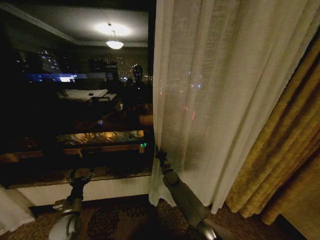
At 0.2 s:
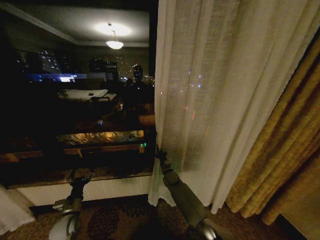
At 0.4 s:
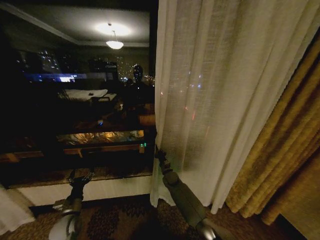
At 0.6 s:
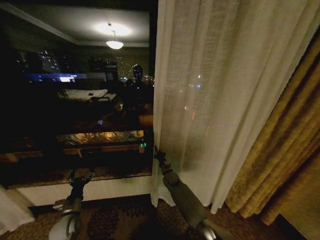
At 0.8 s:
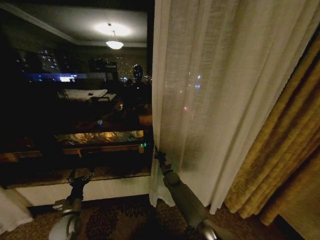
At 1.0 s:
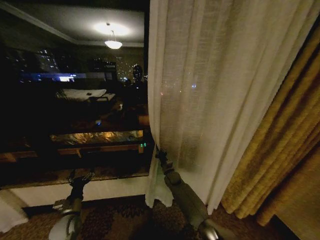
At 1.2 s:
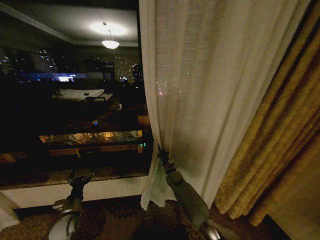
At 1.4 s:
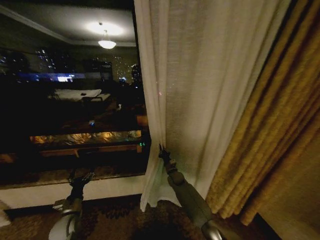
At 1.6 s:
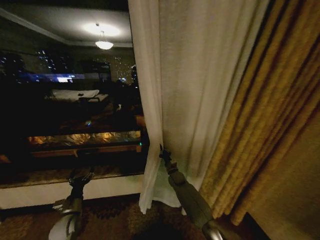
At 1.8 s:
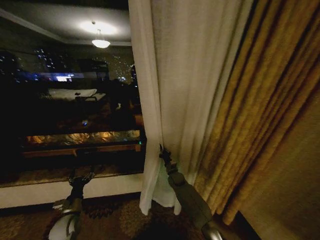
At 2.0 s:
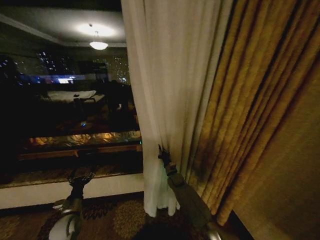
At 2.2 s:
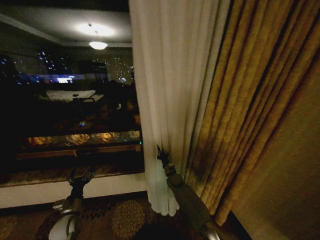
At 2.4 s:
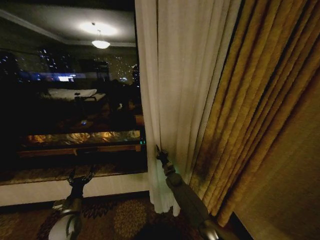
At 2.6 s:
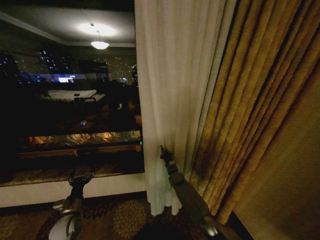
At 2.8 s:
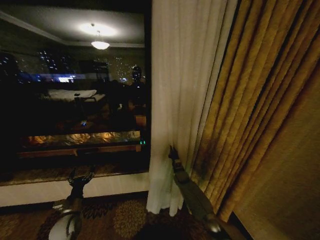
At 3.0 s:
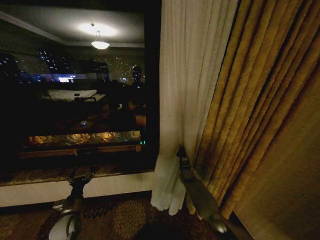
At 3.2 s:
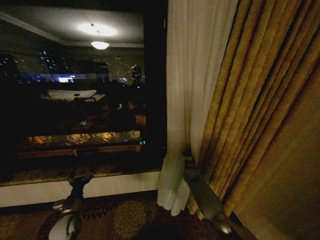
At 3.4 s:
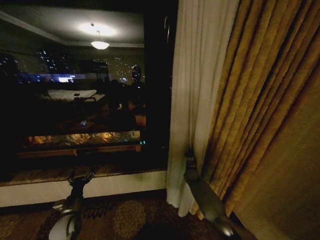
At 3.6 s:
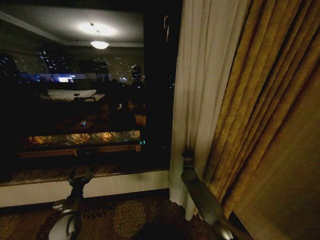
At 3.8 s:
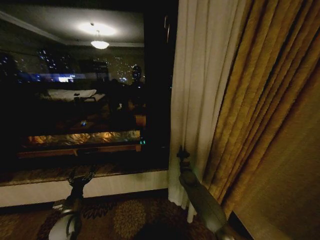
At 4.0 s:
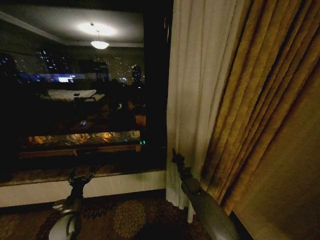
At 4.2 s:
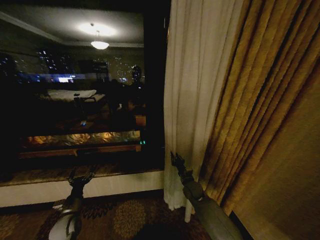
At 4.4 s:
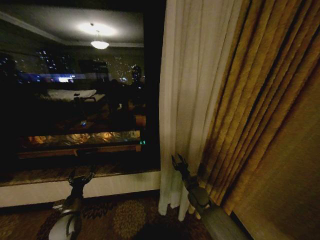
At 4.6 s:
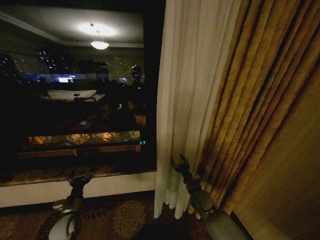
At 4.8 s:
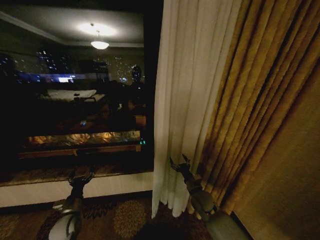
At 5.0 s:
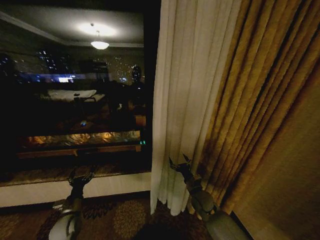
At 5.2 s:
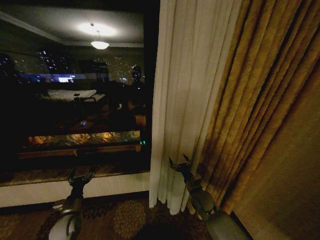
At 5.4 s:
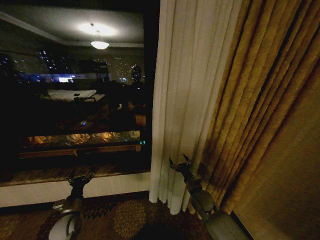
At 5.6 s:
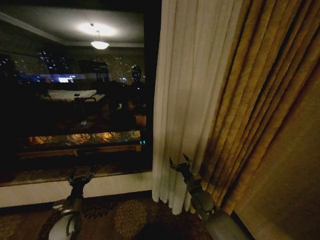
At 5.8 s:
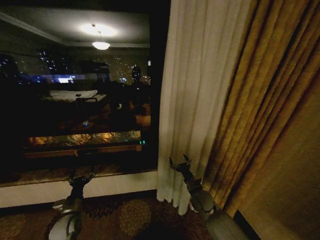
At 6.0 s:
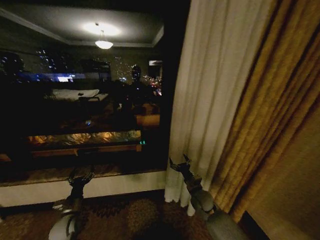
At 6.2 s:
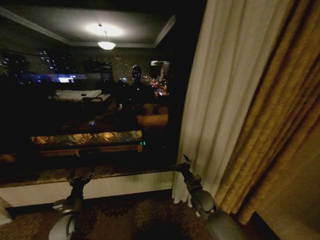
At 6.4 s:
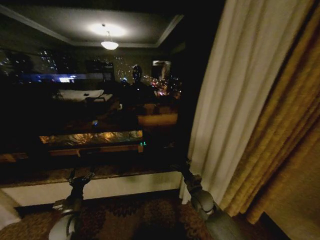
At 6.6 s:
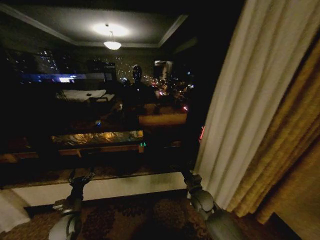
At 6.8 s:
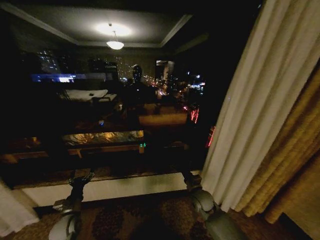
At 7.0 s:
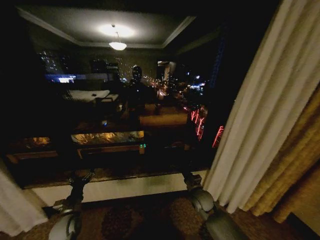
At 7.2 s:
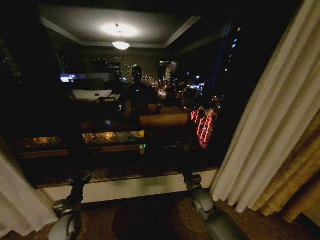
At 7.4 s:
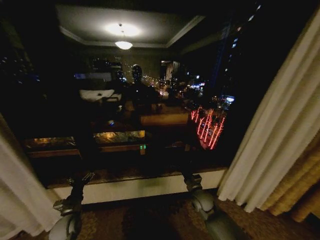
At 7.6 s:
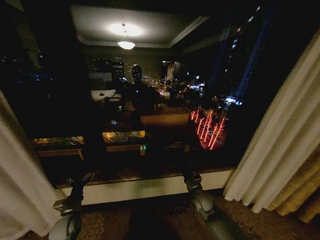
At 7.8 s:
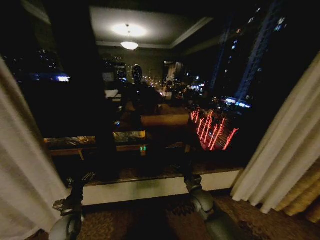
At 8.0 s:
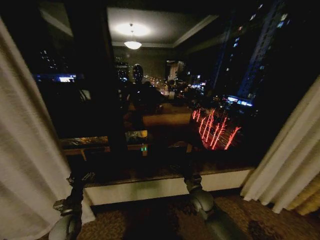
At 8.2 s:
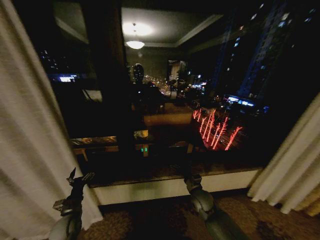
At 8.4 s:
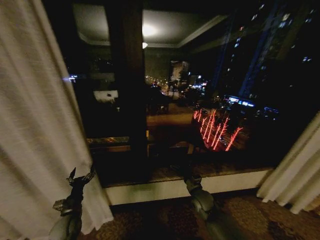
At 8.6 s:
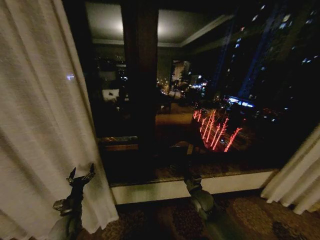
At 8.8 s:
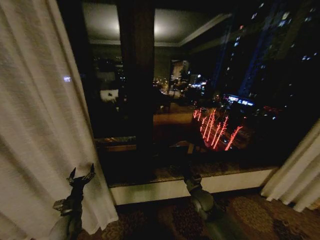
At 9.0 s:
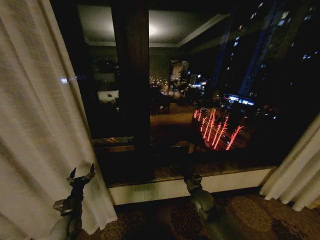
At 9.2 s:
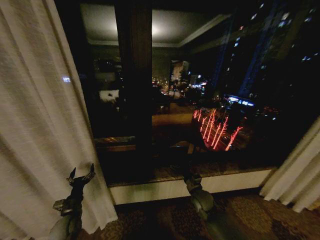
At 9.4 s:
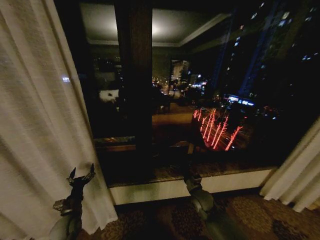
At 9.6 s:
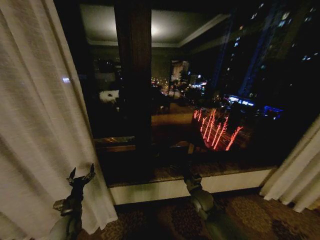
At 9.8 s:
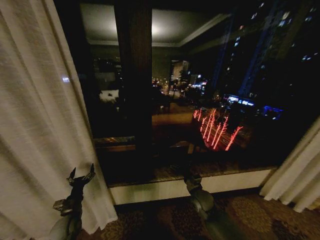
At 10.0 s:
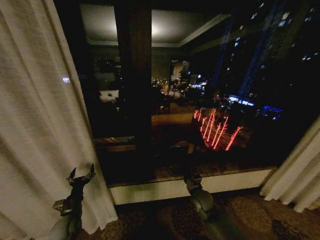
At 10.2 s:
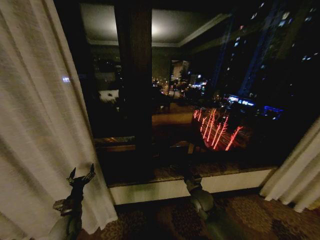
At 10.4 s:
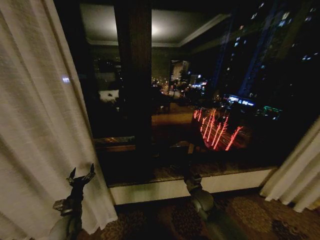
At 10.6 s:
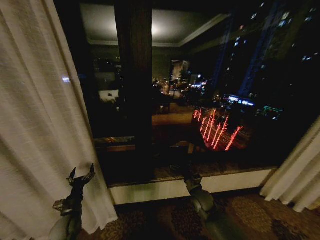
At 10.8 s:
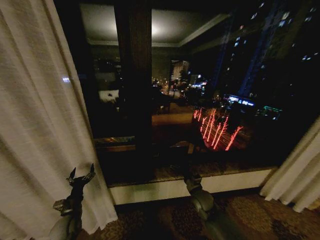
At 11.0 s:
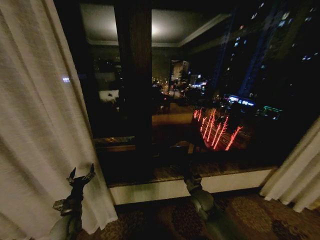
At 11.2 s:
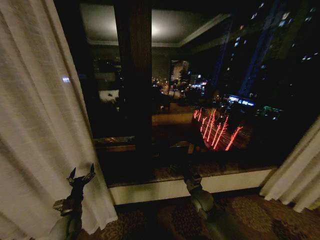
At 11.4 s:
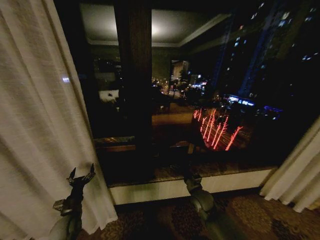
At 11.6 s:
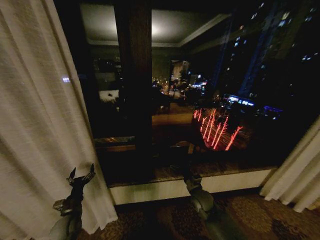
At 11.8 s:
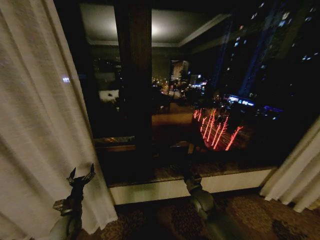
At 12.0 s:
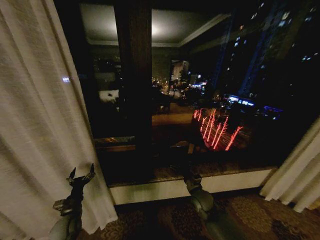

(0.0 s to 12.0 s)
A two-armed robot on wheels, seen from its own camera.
Task of the whole recording: Open the curtains by pulling them apart, changing their state from closed to fully open.
1.6 s - 3.0 s: The right gripper shifts about 10 cm to the right.
3.0 s - 4.4 s: The right gripper heads backward, covering roughly 15 cm, and opens its fingers.
4.4 s - 6.0 s: The right gripper opens.
9.0 s - 12.0 s: Both grippers stay put.

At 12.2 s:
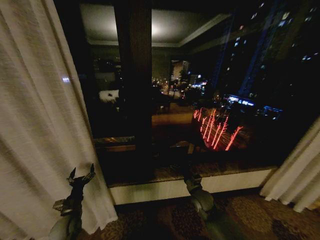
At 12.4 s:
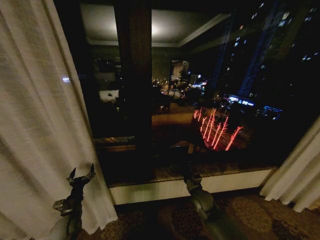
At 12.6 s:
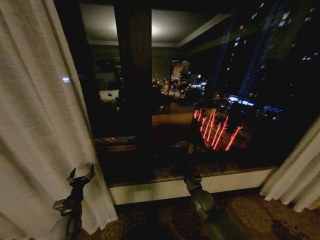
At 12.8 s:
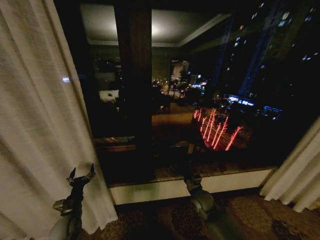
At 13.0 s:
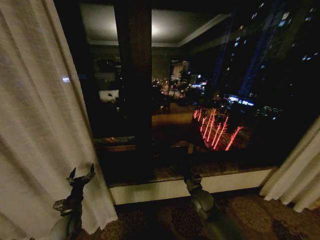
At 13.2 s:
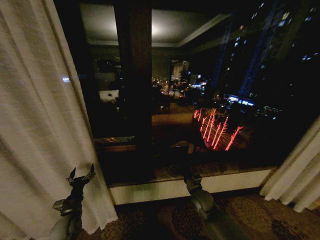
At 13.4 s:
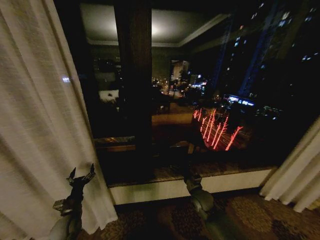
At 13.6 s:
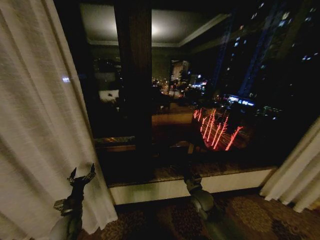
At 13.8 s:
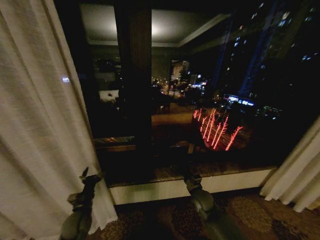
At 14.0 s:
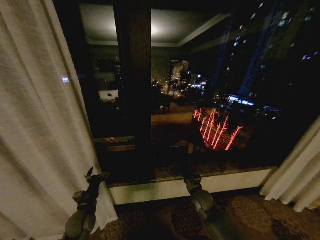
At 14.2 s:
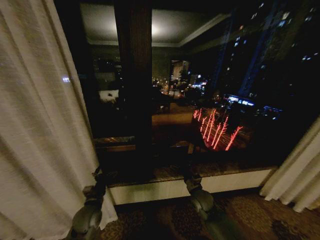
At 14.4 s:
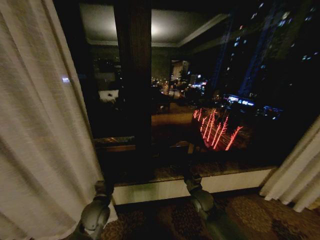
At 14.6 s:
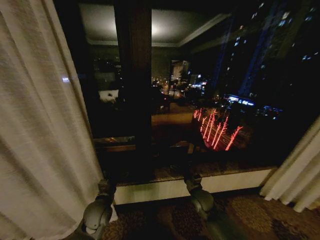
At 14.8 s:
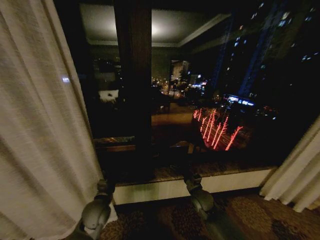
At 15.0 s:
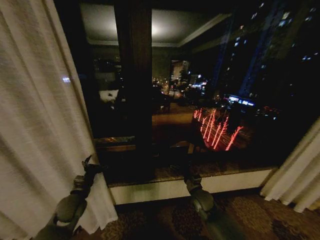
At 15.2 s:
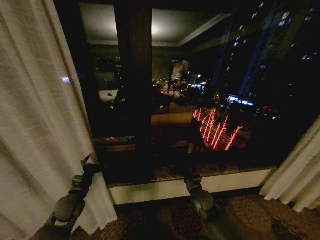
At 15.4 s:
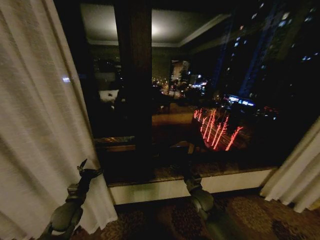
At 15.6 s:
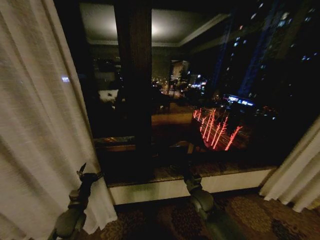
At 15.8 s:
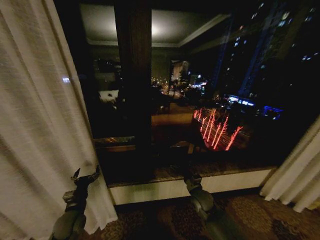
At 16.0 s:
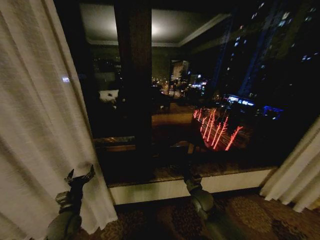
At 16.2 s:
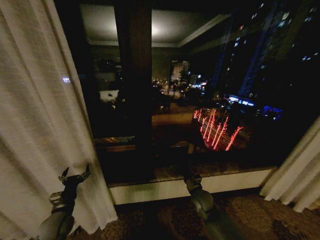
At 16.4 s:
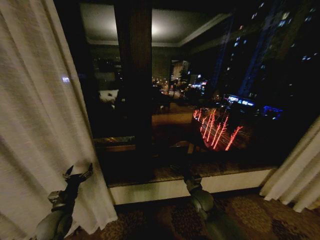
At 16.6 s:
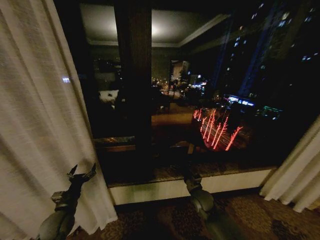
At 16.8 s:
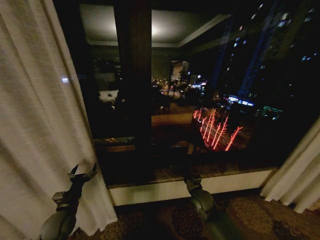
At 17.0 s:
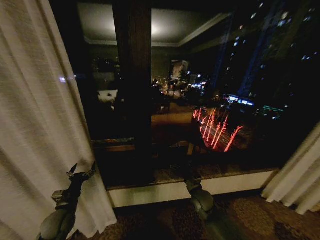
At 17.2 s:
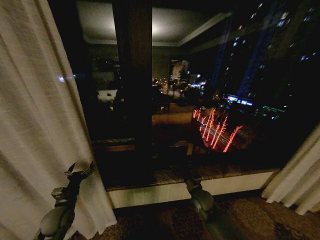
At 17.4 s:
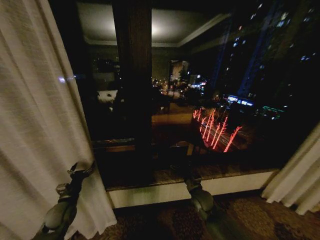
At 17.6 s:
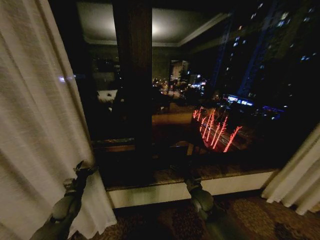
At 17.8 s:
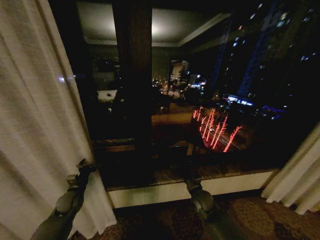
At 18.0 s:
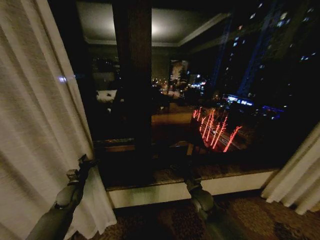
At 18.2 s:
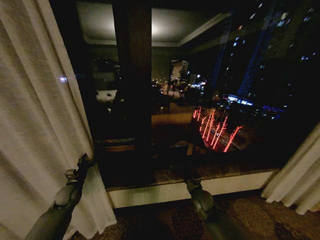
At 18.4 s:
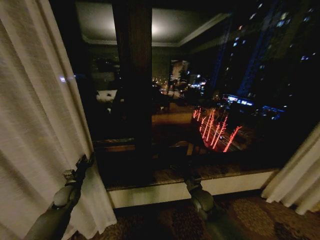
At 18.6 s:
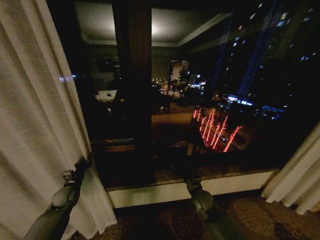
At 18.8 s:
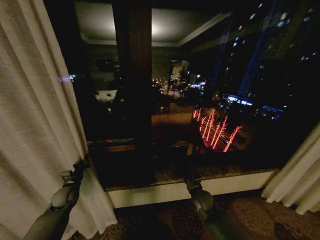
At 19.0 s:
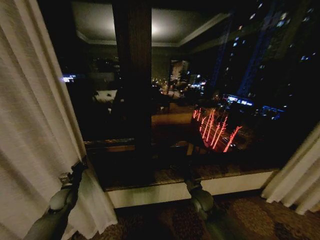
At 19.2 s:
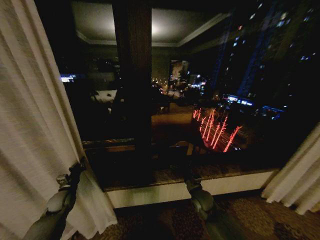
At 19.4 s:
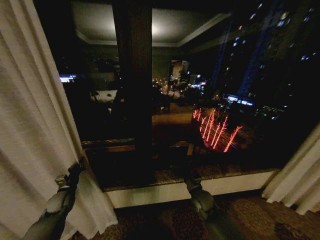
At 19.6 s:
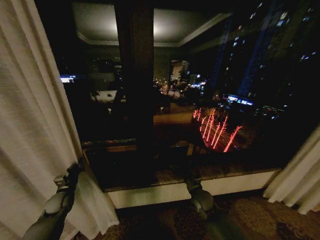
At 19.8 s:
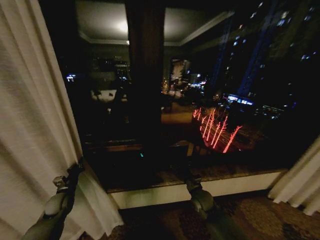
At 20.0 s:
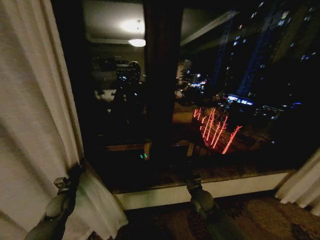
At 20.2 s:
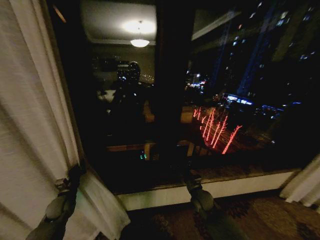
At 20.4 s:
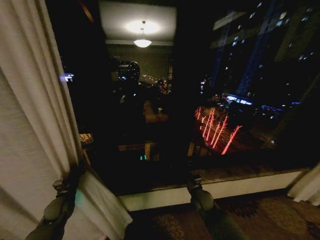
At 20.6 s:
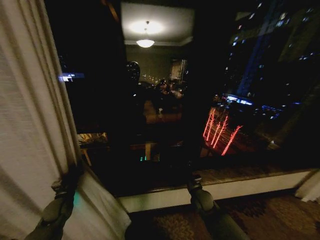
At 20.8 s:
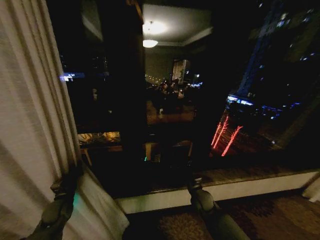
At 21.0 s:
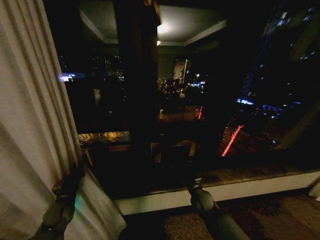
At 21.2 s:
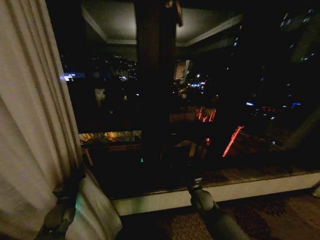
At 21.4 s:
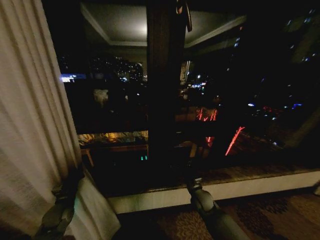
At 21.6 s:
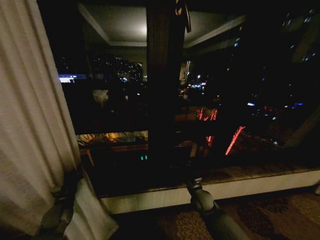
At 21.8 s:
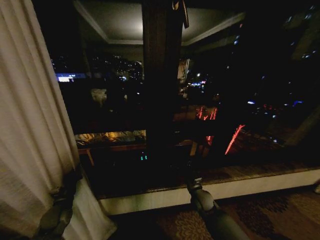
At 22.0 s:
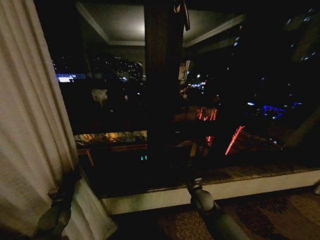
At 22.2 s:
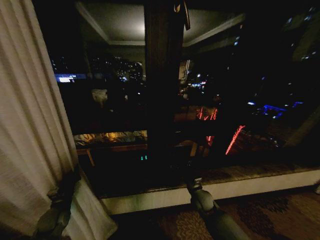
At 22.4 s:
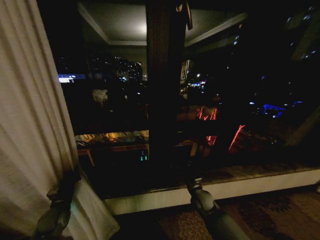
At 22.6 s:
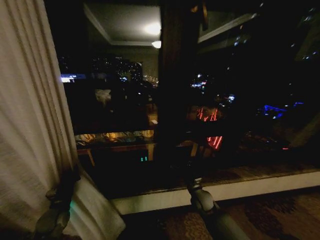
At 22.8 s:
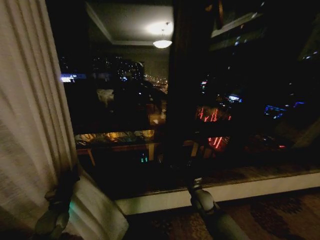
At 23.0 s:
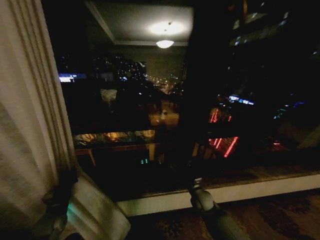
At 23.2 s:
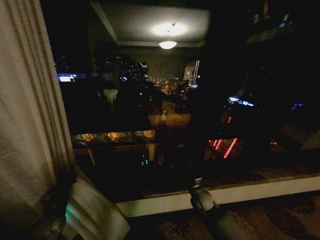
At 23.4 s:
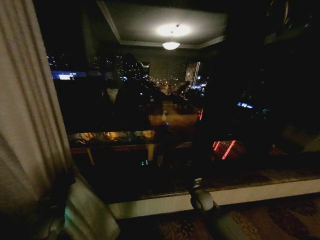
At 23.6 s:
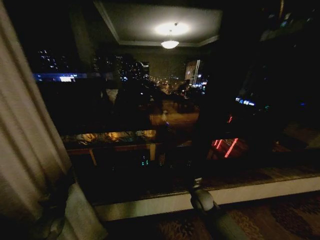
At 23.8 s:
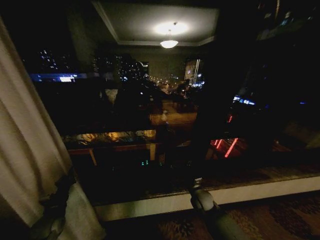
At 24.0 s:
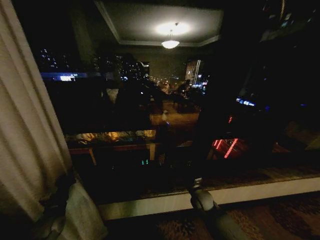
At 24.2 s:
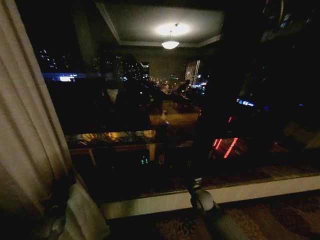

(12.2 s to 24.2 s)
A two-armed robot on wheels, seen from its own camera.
Task of the whole recording: Open the curtains by pulling them apart, changing their state from closed to fully open.
12.2 s - 13.8 s: The grippers stay close to where they were, moving slightly.
13.8 s - 15.2 s: The left gripper travels upward by approximately 5 cm, and reaches some 10 cm to the right, then returns.
15.2 s - 16.6 s: The left gripper moves roughly 5 cm.
16.6 s - 18.2 s: The left gripper travels forward by approximately 10 cm.
18.2 s - 19.8 s: The left gripper closes up.
21.2 s - 22.6 s: The grippers stay close to where they were, moving slightly.
